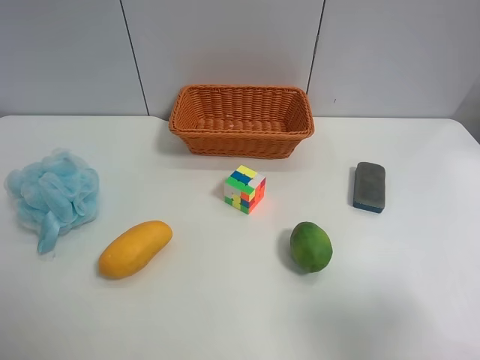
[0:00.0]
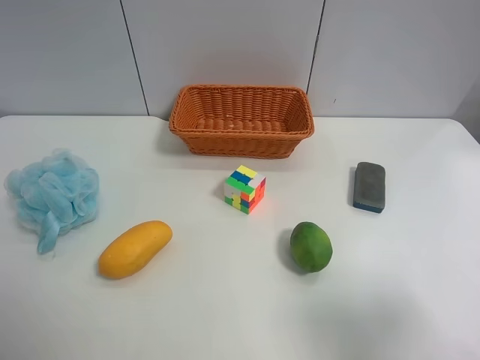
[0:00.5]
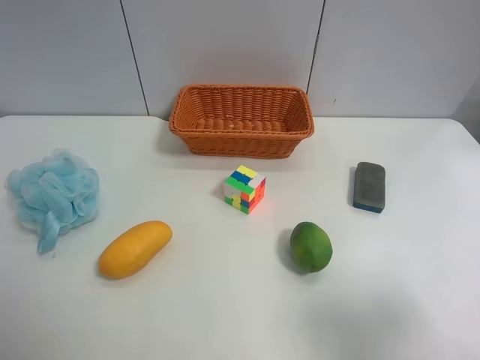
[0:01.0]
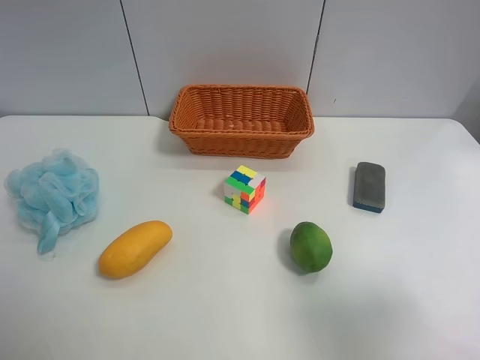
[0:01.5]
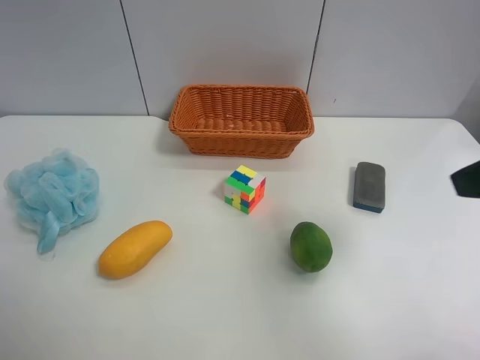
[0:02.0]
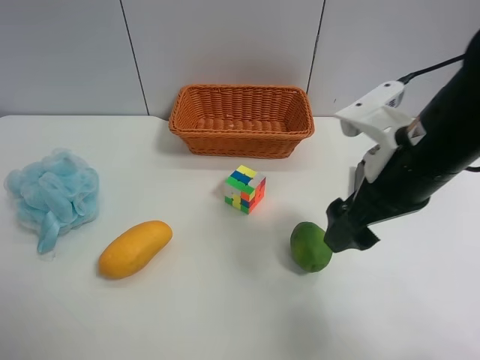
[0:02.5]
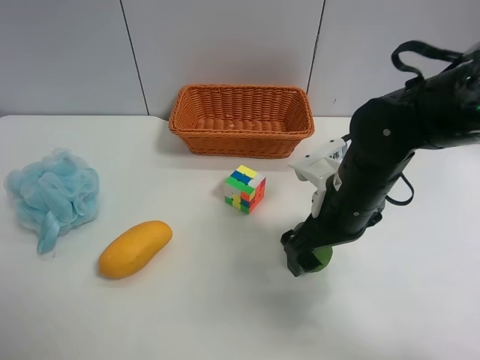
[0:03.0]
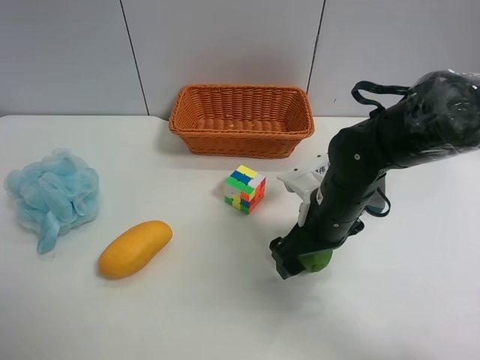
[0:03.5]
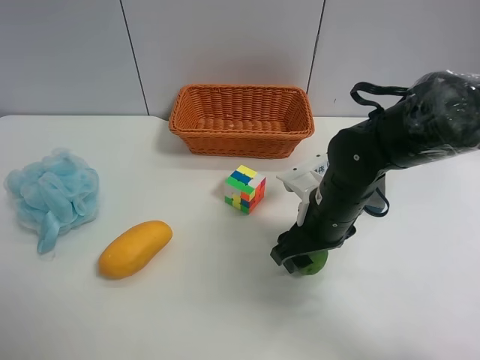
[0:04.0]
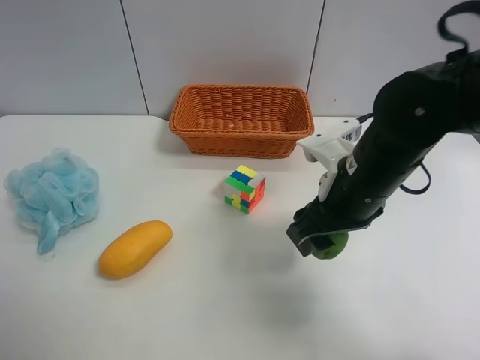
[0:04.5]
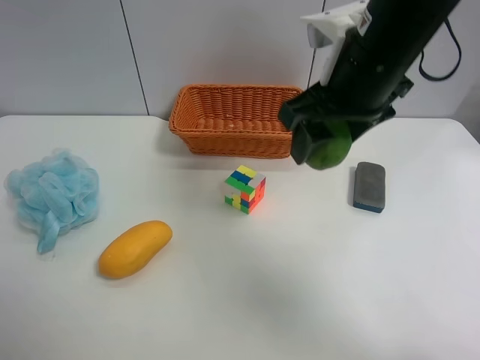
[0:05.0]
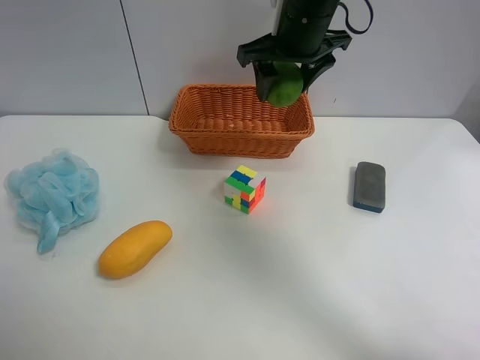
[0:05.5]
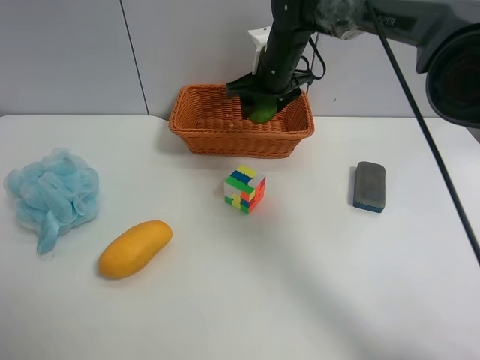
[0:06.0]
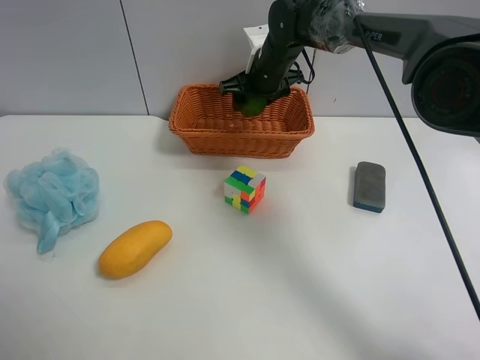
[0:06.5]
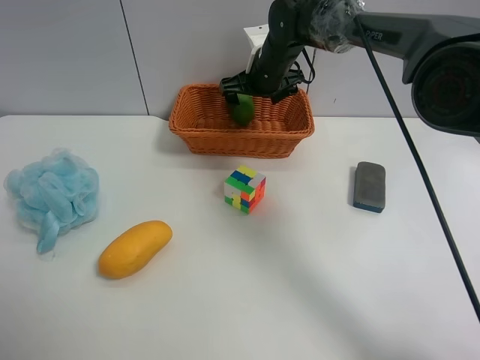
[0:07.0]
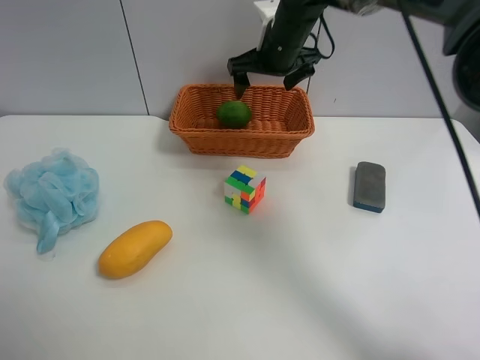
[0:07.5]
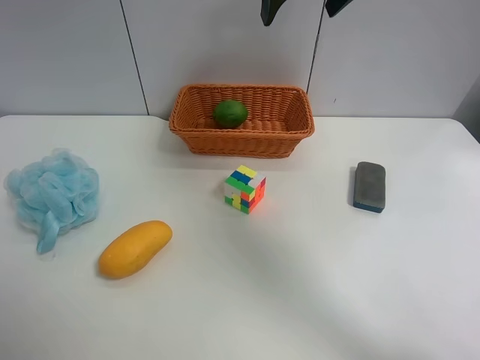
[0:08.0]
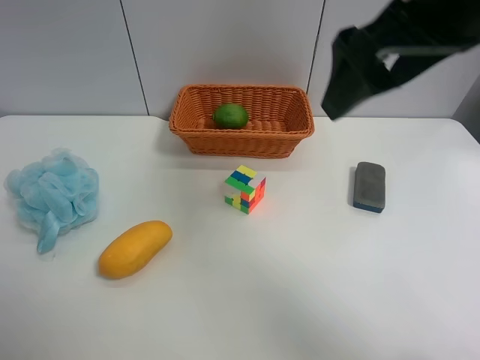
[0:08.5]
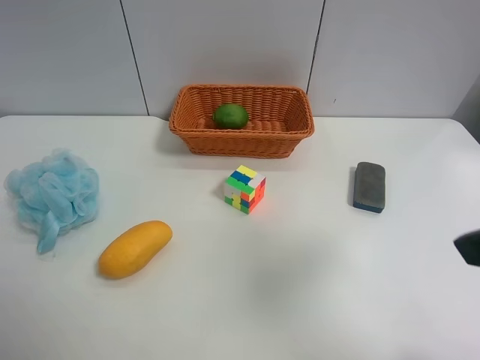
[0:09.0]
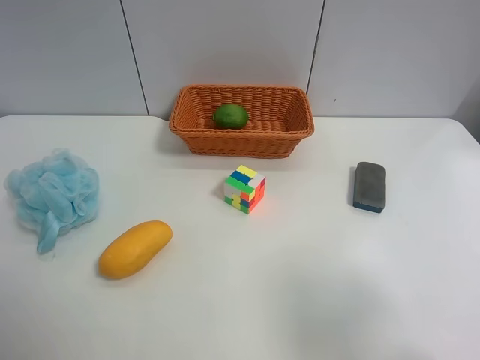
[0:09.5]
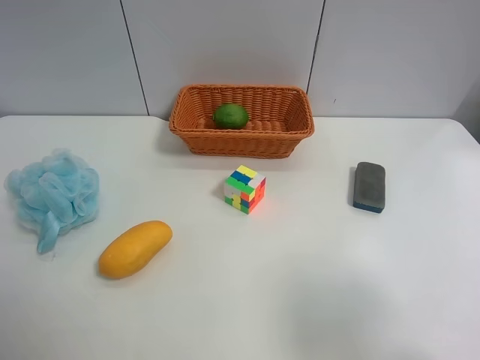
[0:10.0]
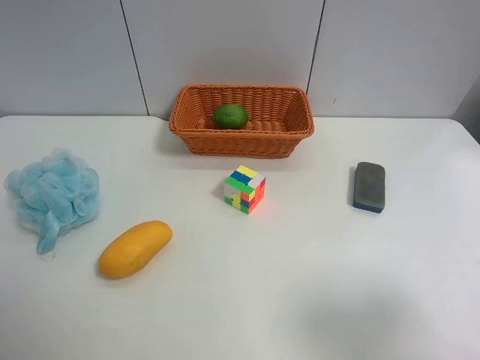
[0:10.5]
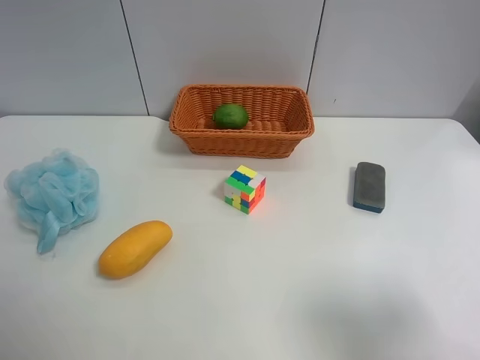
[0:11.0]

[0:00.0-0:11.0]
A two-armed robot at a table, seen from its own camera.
Task of the whole recording: Randomly grab green lemon or mangoes from the table and put them in a basket.
Step, 0:00.0 to 0:03.5: Grasp the Lemon with the right gripper.
Step, 0:04.0 to 0:07.5: Place the Lemon into the basket with the right gripper.
0:00.0 to 0:02.0: The right gripper shifts some 15 cm forward and upward.
0:02.0 to 0:03.5: The right gripper moves downward, to the left and forward, some 25 cm.
0:03.5 to 0:05.5: The right gripper heads upward and forward, covering approximately 25 cm, and closes.
0:05.5 to 0:07.5: The right gripper goes approximately 5 cm forward, and opens up.
0:07.5 to 0:09.0: The right gripper moves backward, approximately 40 cm.
0:09.0 to 0:11.0: The right gripper shifts approximately 10 cm backward, downward and to the right.
